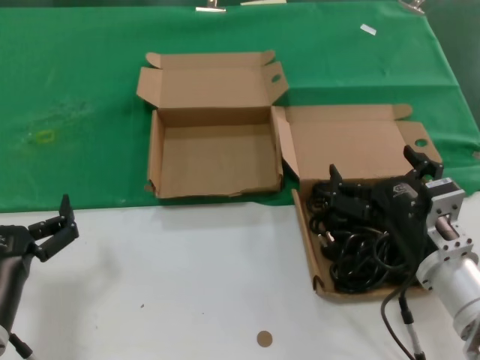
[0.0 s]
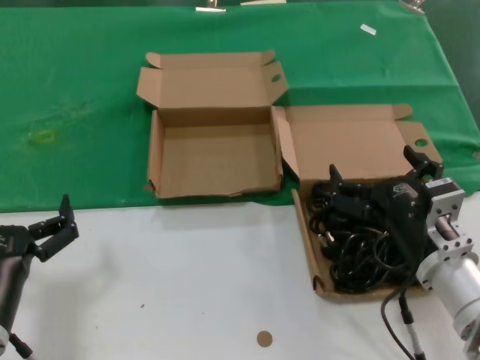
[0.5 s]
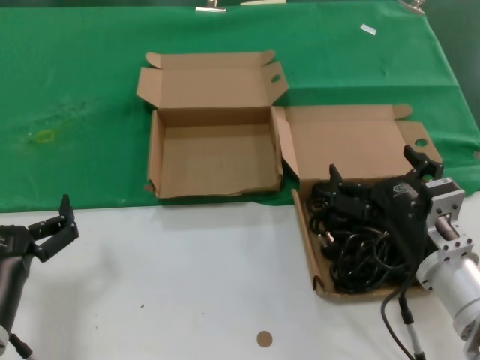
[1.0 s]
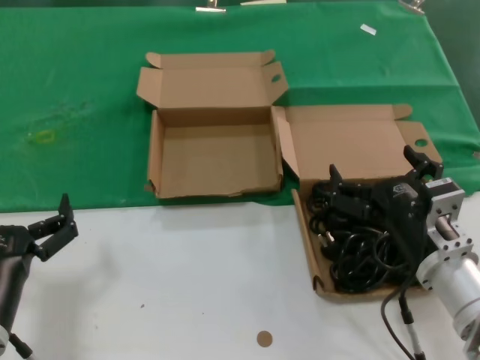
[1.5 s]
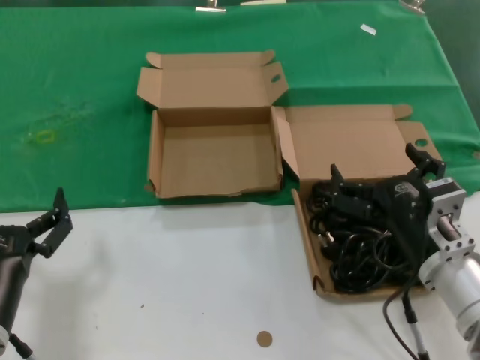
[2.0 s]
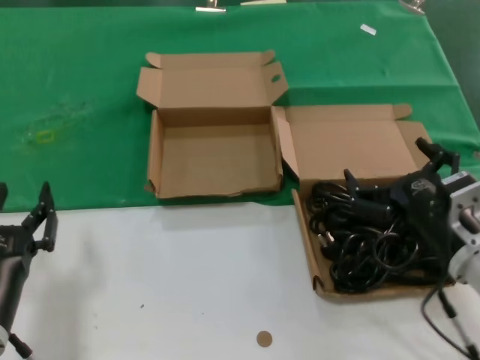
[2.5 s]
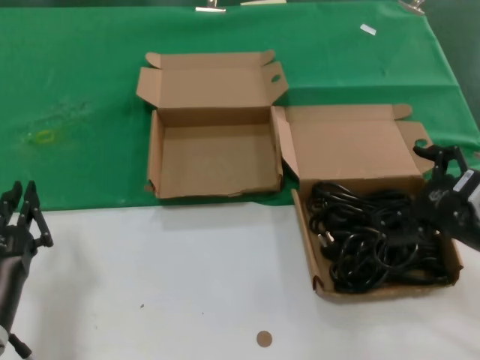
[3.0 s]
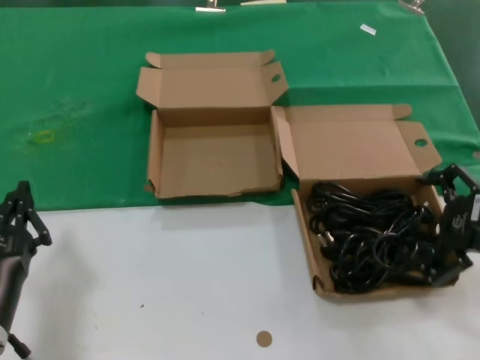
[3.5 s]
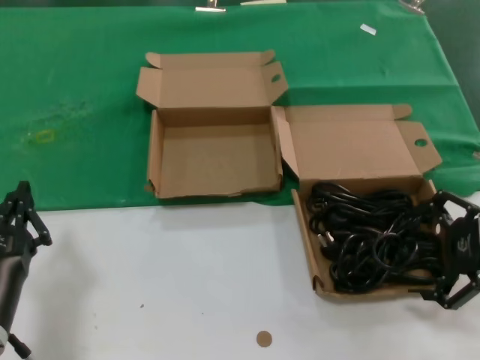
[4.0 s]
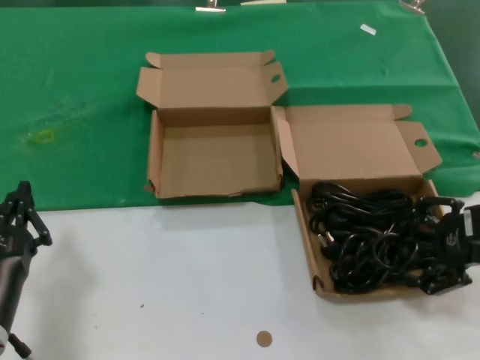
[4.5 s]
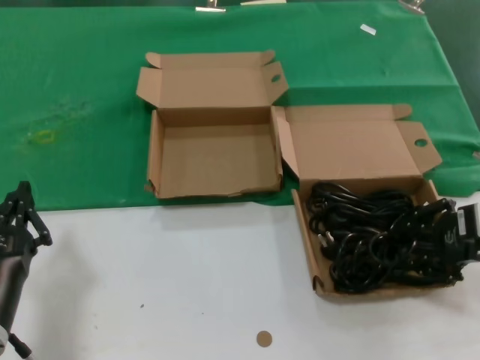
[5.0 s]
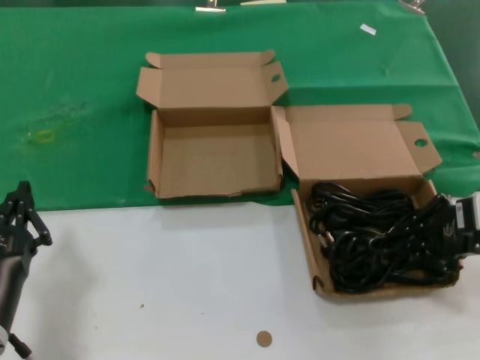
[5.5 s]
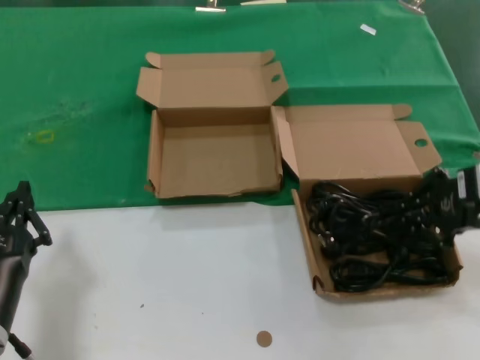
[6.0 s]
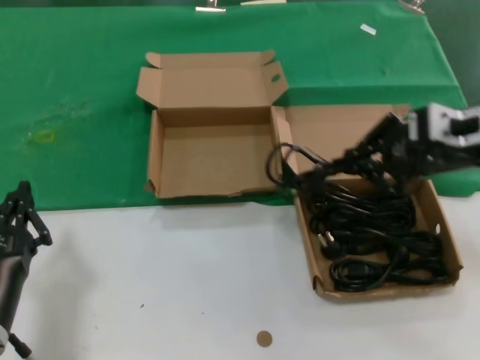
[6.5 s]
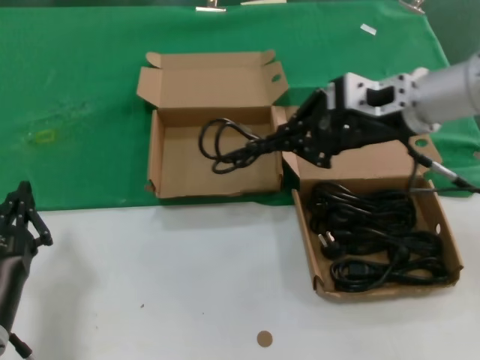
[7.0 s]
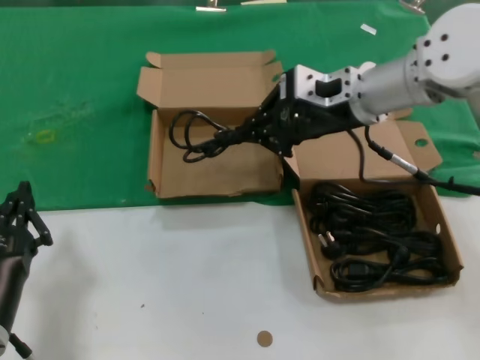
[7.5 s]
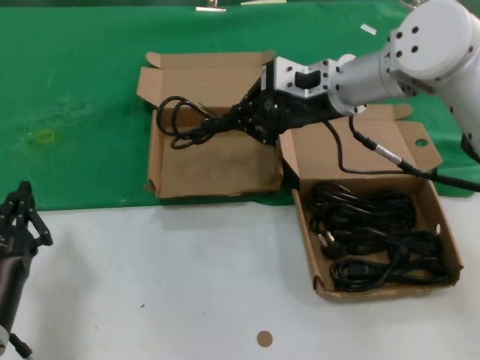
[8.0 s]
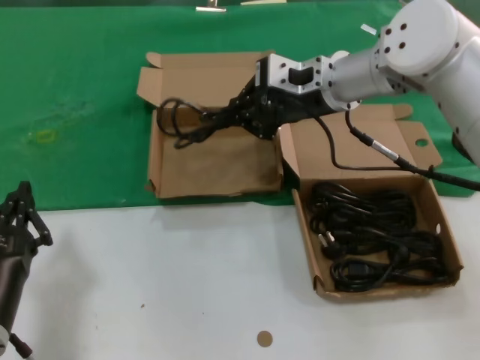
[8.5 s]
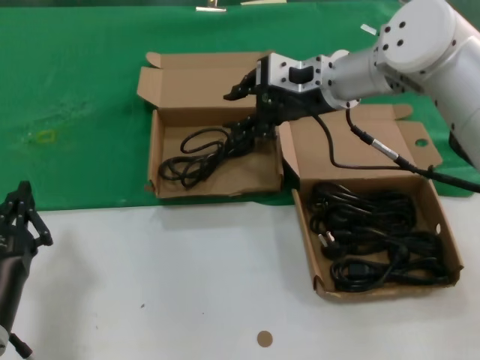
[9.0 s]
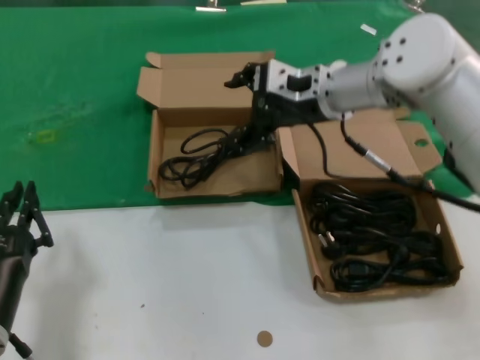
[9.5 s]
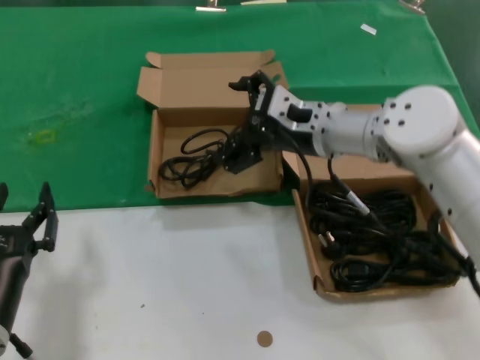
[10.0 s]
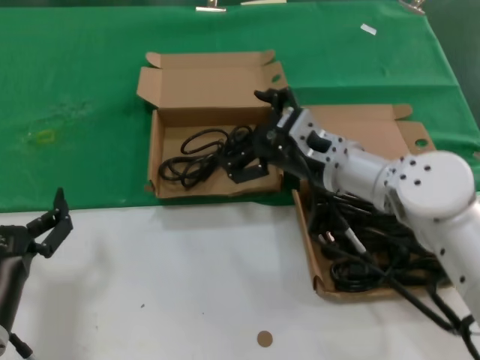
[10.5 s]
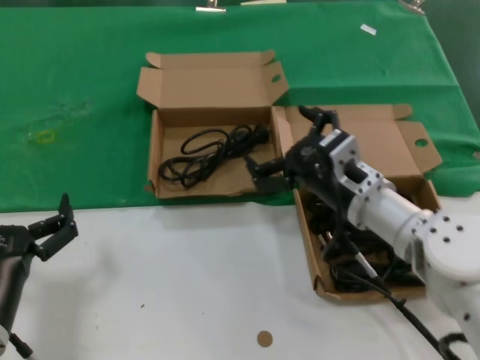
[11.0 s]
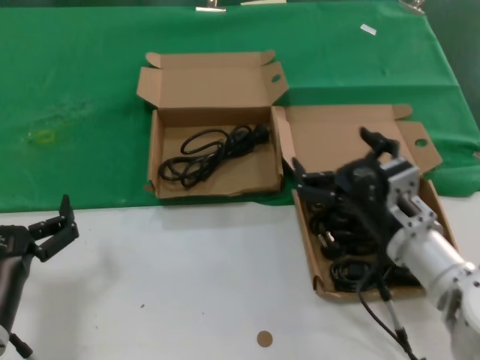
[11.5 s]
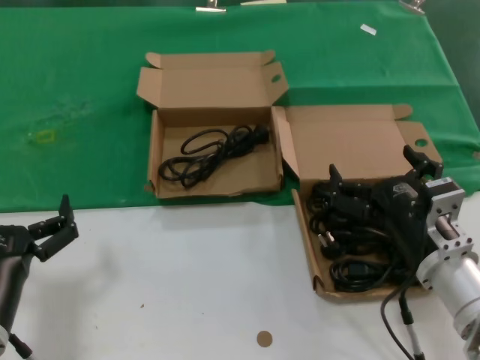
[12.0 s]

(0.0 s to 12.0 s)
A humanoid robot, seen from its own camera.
Task of the whole recording: take the parts from the box containing them and put them into an empty box.
Step, 0.0 s - 5.0 s: Grasp the data cable.
Step, 5.5 s - 8.5 s: Place the data cable in the another box.
0.0 s - 2.0 s: Both hands stay put.
2.0 s - 4.0 s: The right hand travels to the right and upward by about 20 cm.
4.0 s - 6.0 s: The right hand shifts by some 5 cm.
6.0 s - 8.0 s: The right hand shifts some 25 cm to the left and forward.
8.0 s - 10.0 s: The right hand is displaced downward by about 10 cm.
10.0 s - 12.0 s: The right hand goes about 25 cm backward and downward.

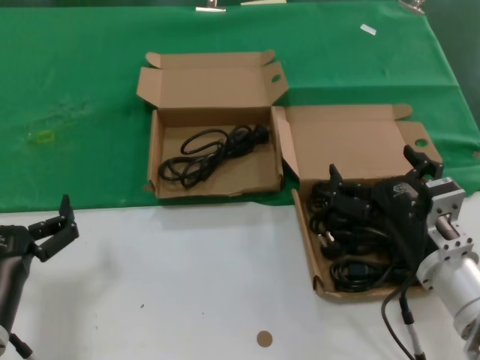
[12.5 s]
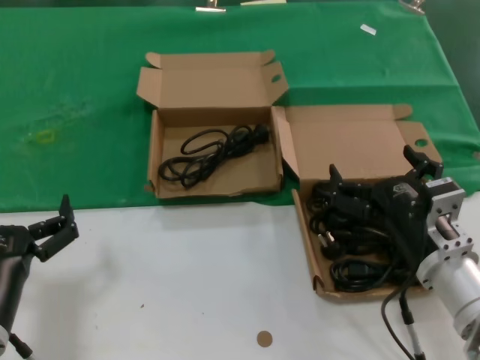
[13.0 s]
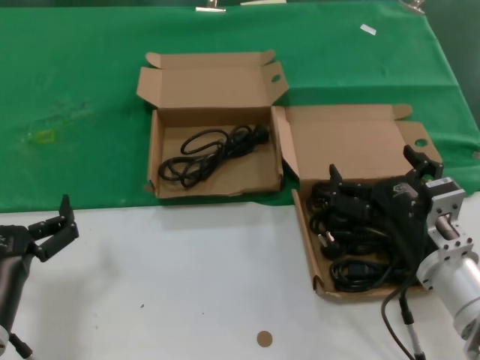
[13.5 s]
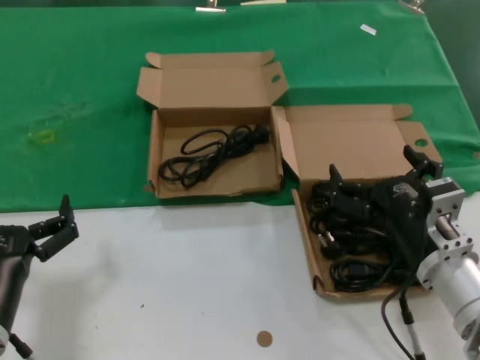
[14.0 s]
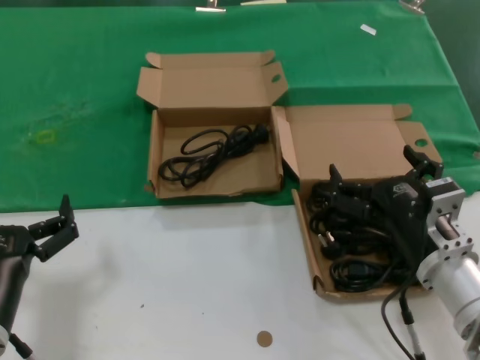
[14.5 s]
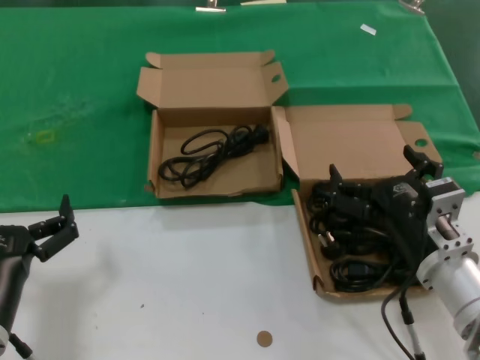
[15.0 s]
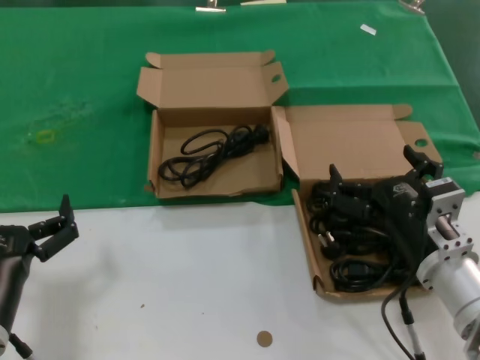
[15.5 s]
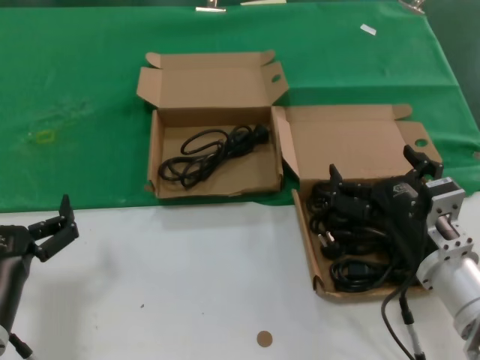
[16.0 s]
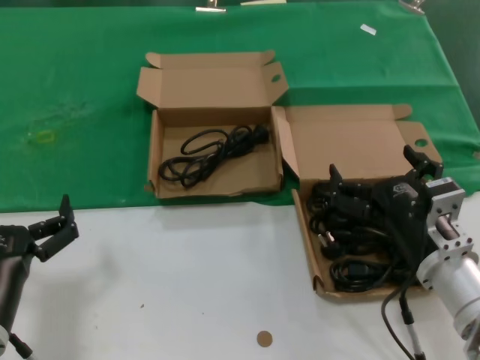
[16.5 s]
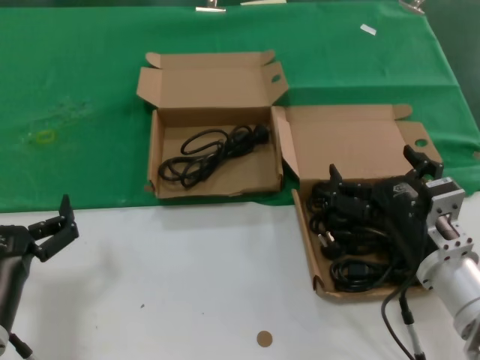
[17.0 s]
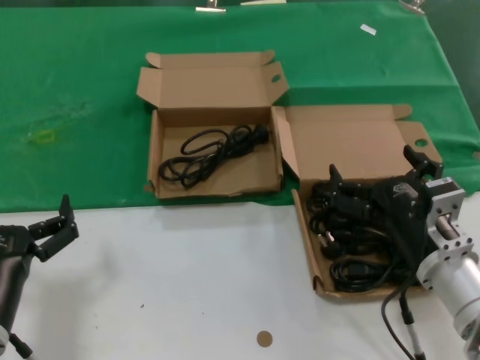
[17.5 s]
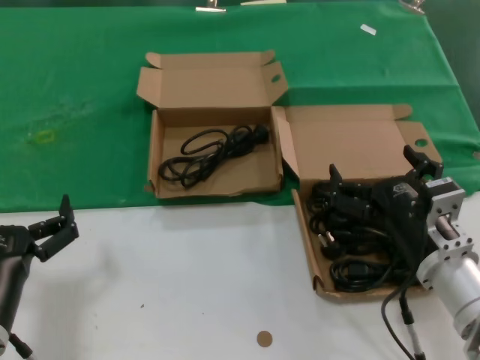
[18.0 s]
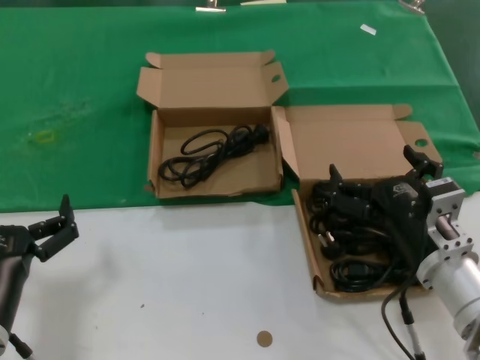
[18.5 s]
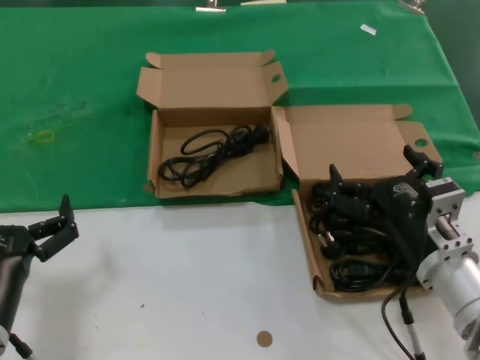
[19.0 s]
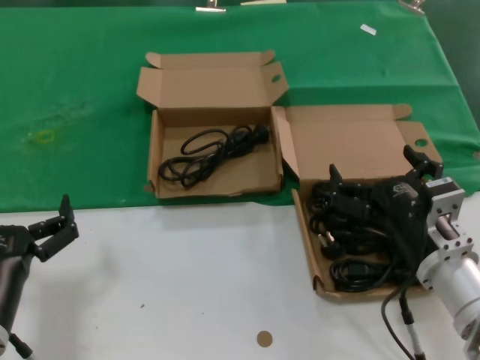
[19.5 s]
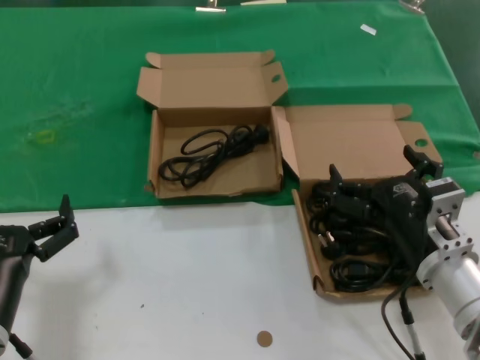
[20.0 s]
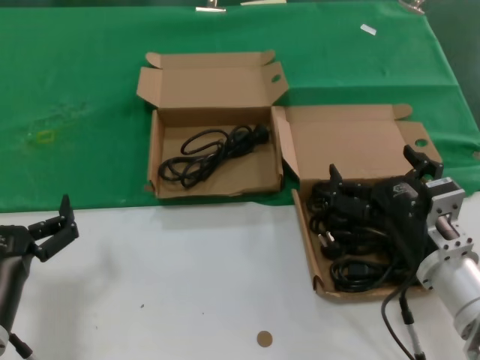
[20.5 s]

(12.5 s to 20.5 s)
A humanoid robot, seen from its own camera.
Task of the whole recording: take the parts from the box containing them and put them into an empty box.
12.5 s - 20.5 s: The two hands keep their place.

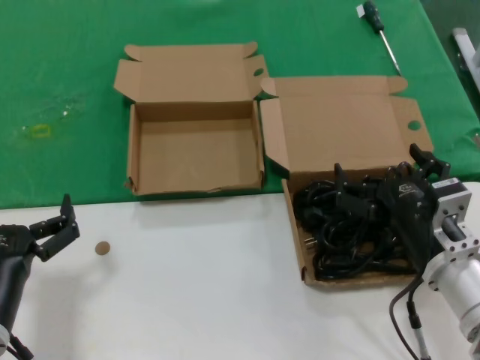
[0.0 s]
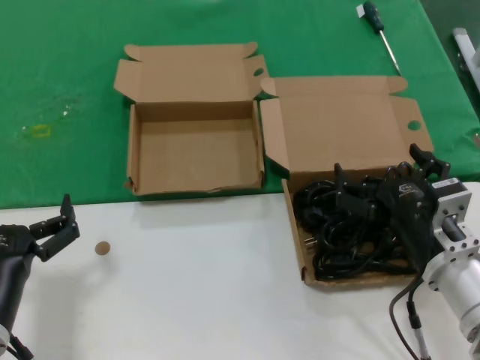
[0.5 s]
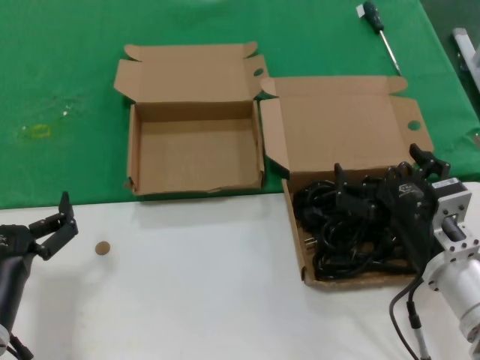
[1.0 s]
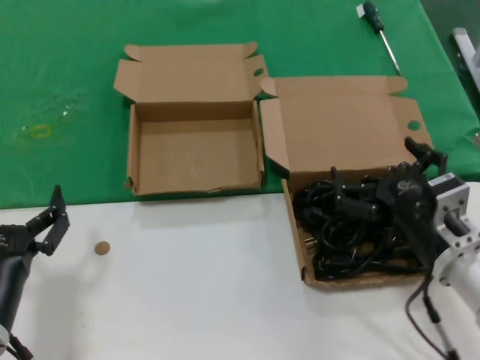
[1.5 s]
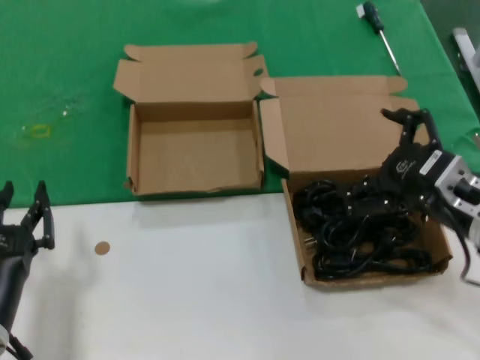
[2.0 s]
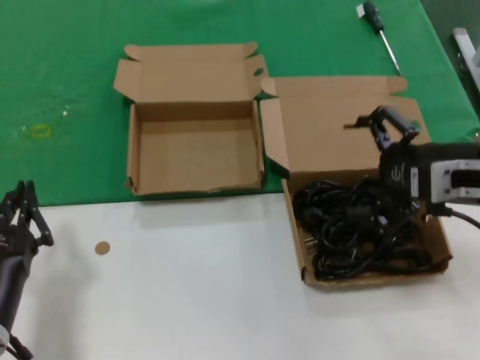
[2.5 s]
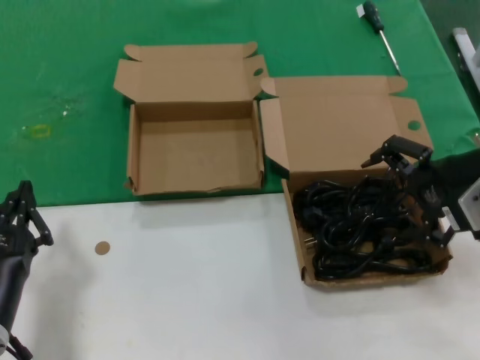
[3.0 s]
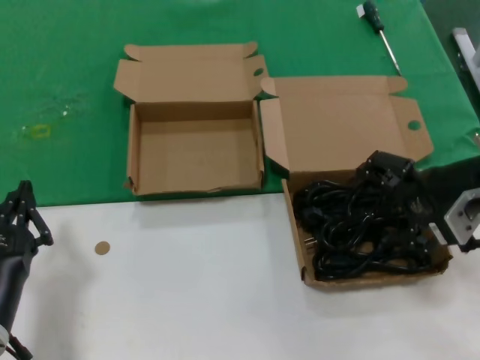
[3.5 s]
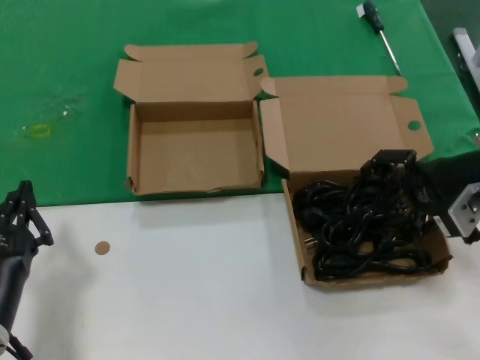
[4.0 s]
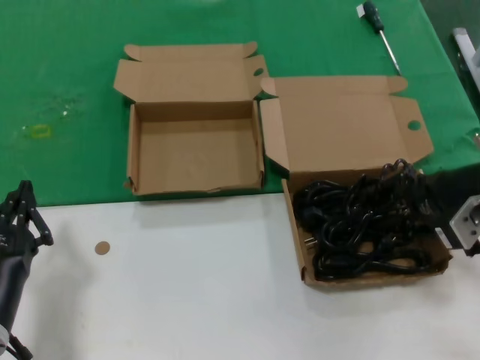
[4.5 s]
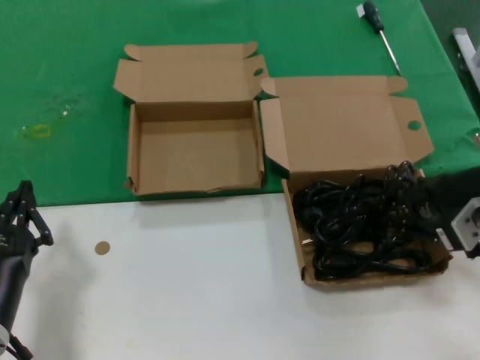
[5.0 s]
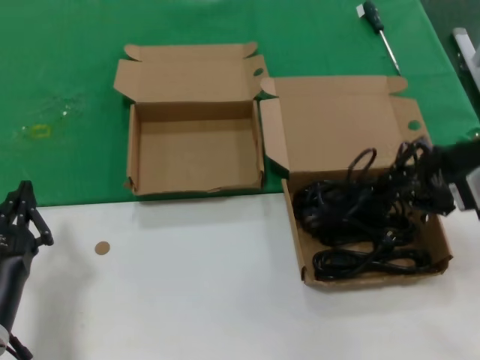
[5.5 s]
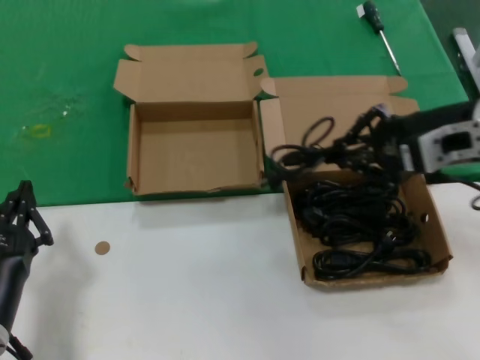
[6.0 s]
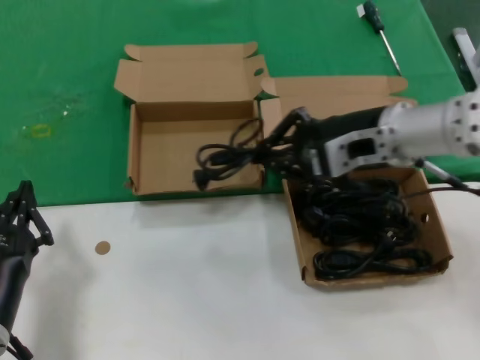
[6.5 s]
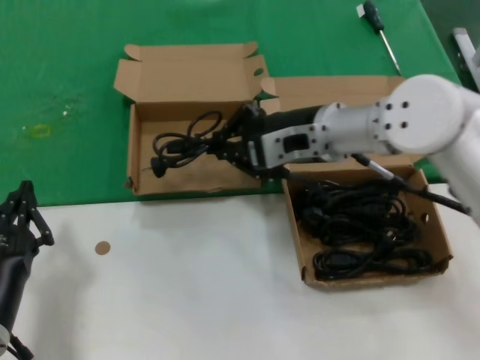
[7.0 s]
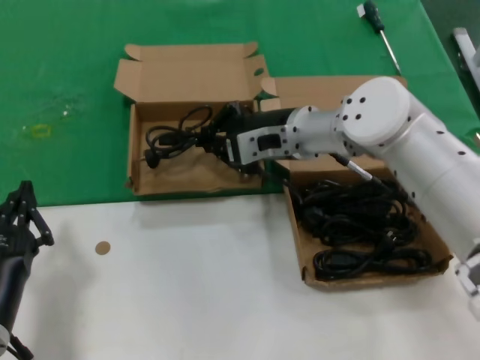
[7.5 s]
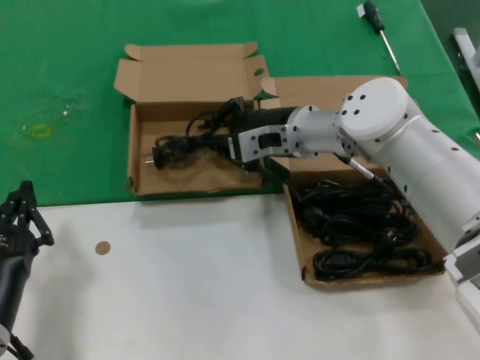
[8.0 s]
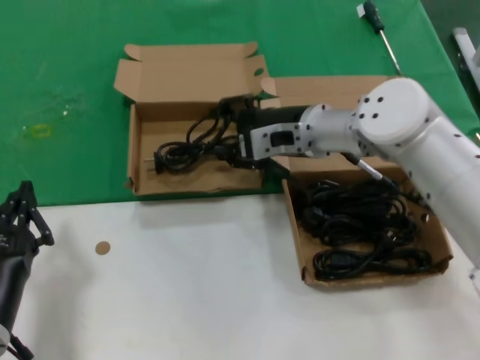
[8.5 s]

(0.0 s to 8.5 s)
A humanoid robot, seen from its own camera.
Task of the whole recording: take the parts from the box containing them and put them into an empty box.
Step, 0.0 s - 4.0 s: Grasp the data cable.
Step, 4.5 s - 8.0 s: Place the data cable in the another box.
0.0 s - 2.0 s: The right hand travels upward and to the right by some 10 cm.
2.0 s - 4.0 s: The right hand is displaced forward and upward by some 10 cm.
4.0 s - 6.5 s: The right hand is displaced to the left by approximately 10 cm.
6.5 s - 8.5 s: The right hand heads forward, to the left and downward, covering roughly 15 cm.
